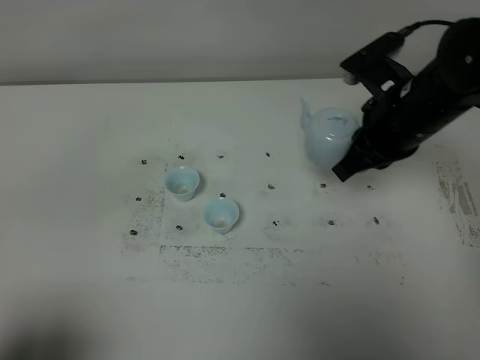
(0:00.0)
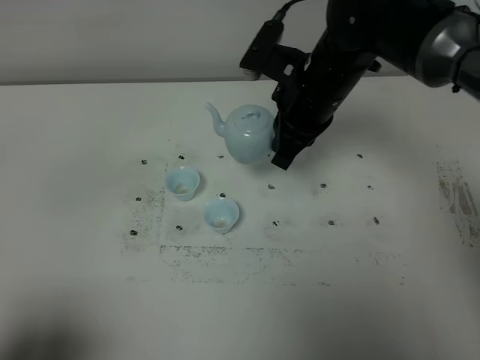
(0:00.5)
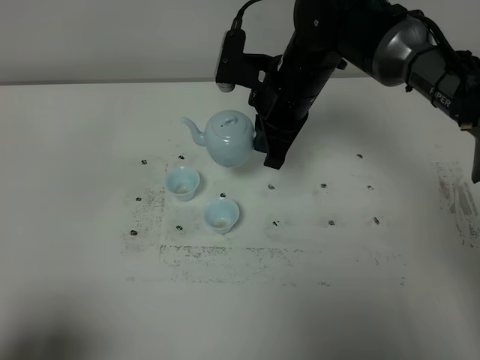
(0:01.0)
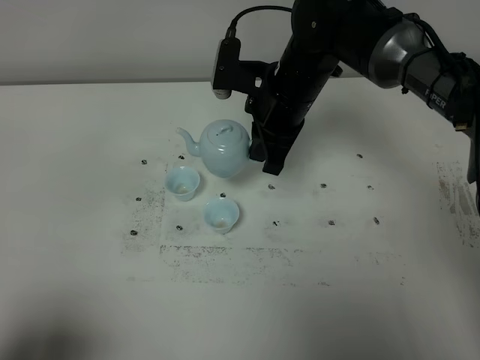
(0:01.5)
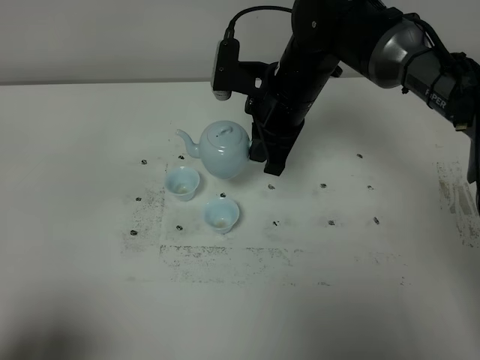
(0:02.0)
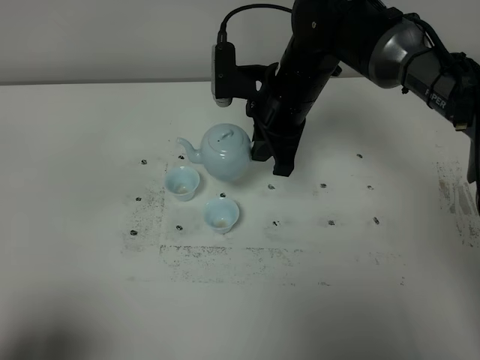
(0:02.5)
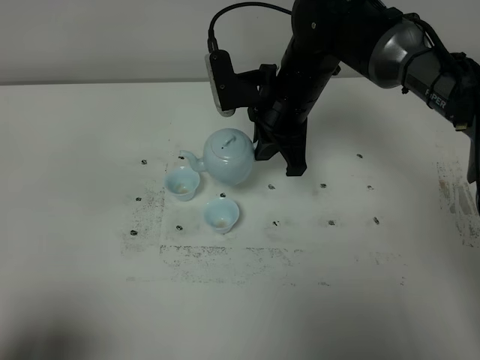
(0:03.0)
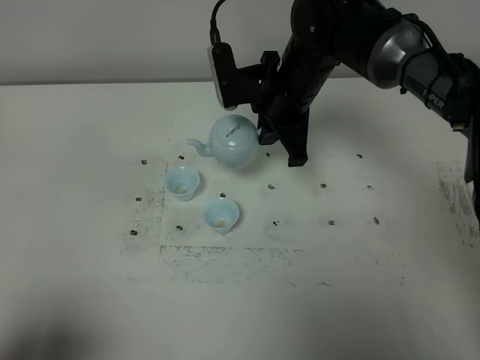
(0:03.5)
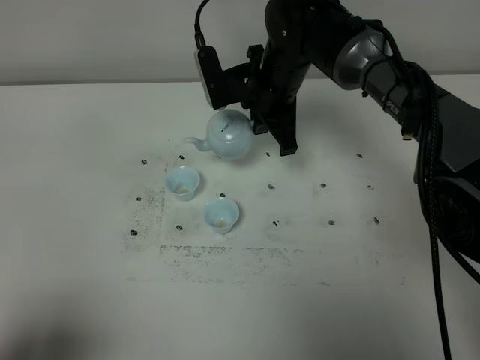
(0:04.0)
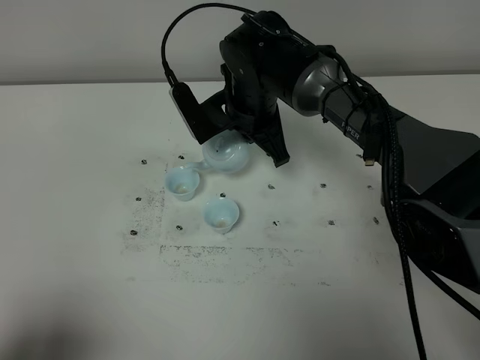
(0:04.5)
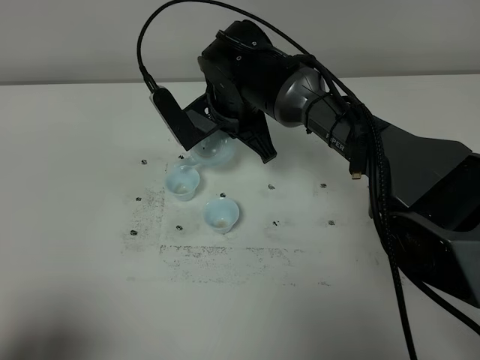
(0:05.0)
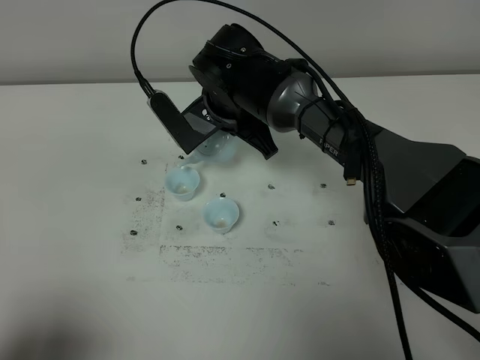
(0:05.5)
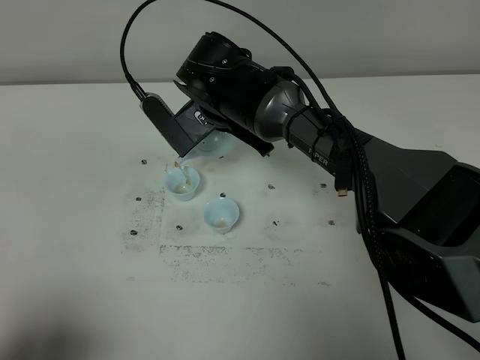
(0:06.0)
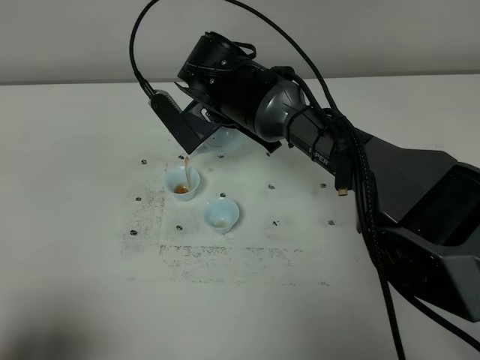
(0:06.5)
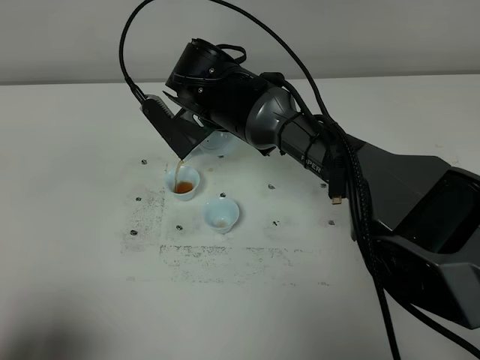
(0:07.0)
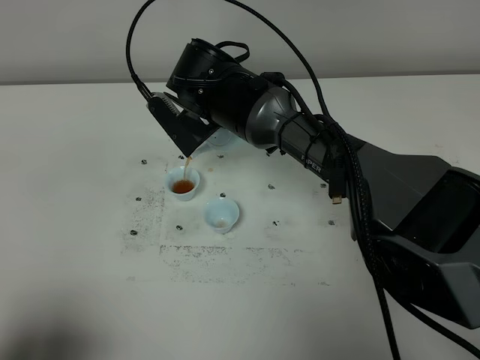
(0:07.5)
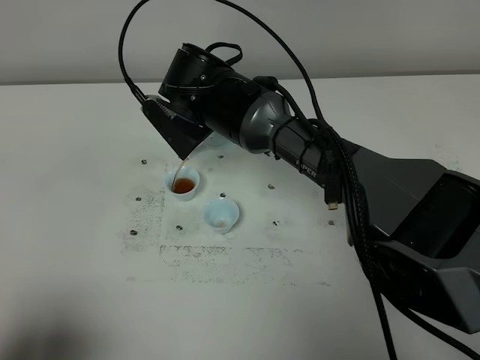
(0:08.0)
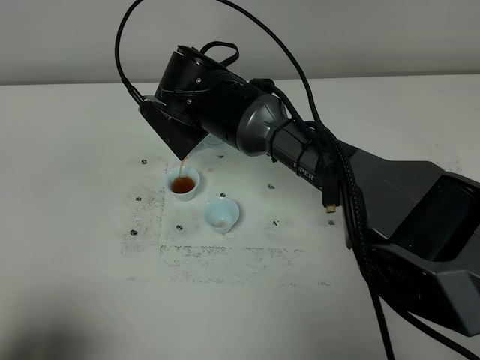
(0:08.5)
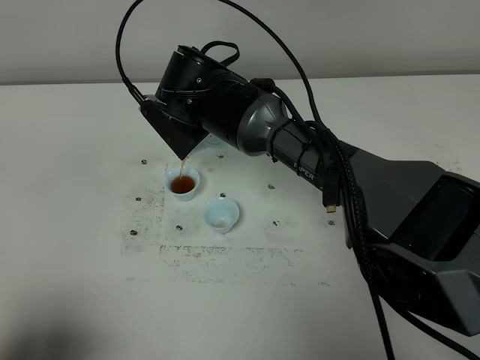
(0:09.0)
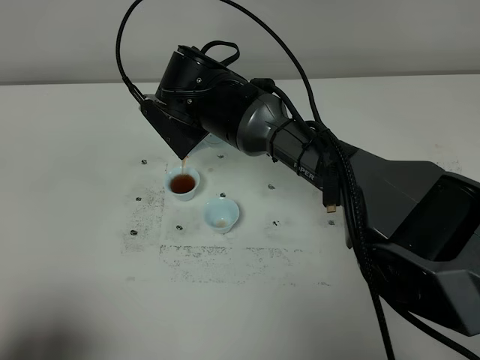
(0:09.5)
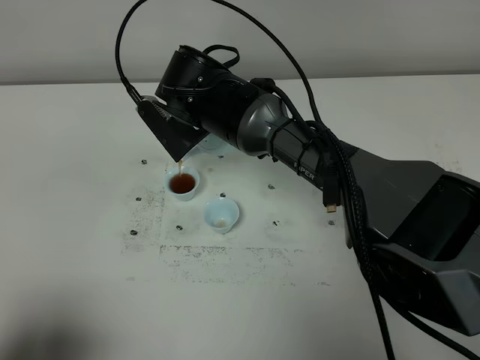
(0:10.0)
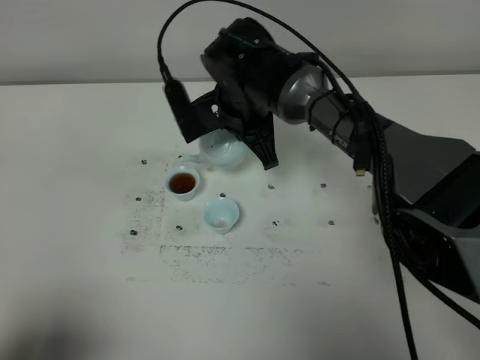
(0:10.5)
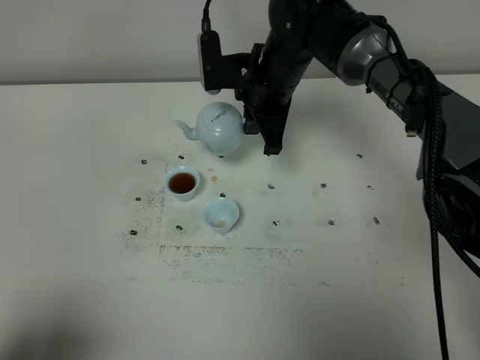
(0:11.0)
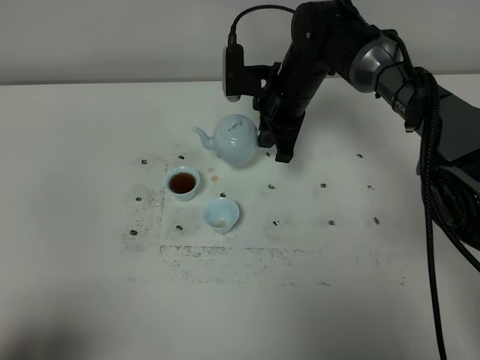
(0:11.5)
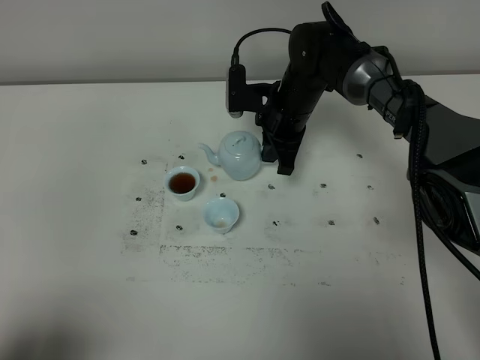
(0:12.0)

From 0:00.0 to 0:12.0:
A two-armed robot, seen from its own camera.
Task of the whole recording: grasp the blue porcelain teapot and pour the tea into the two blue porcelain teacups one by one, put the blue porcelain teapot back in its original place.
Step, from 0:00.0 to 0:10.5: Pour tea into the teacup with the right gripper.
From 0:00.0 to 0:02.0: The right gripper shifts about 15 cm to the left and forward.
From 0:04.0 to 0:06.0: The right gripper heads to the left, covering approximately 5 cm.
From 0:06.0 to 0:08.0: The grippers stay close to where they were, moving slightly.
From 0:08.0 to 0:10.0: Neither gripper changes place.
From 0:10.0 to 0:12.0: The right gripper travels to the right, forward and downward by approximately 15 cm.

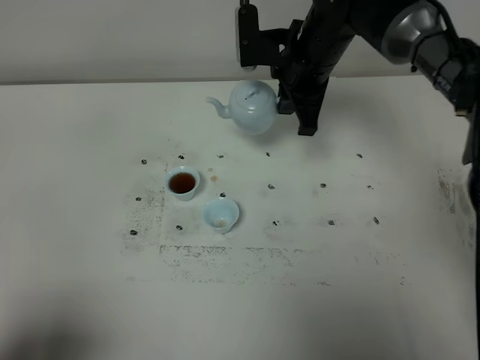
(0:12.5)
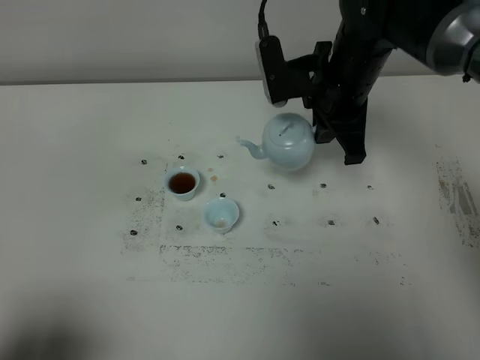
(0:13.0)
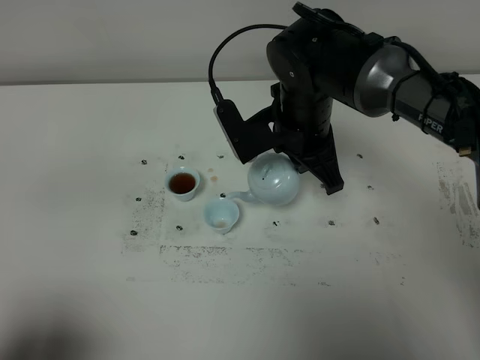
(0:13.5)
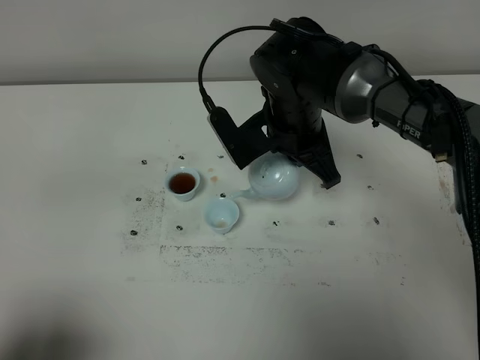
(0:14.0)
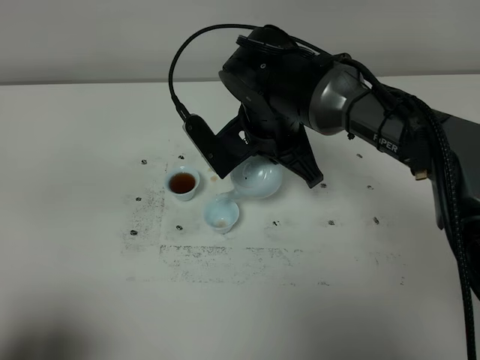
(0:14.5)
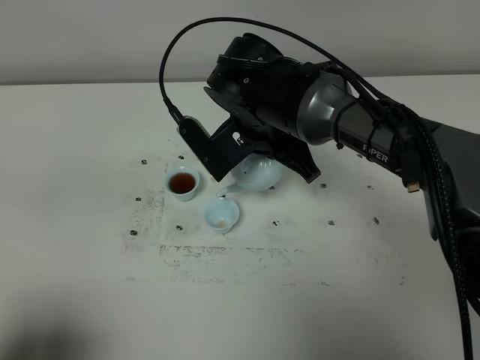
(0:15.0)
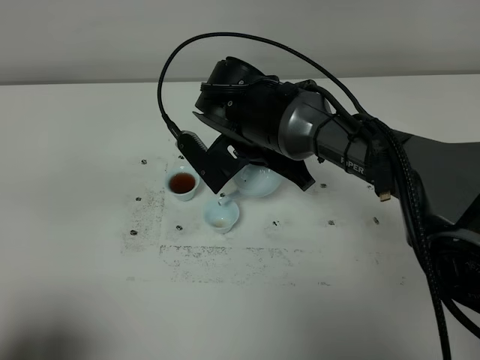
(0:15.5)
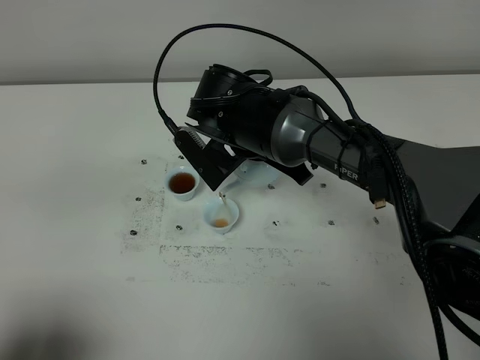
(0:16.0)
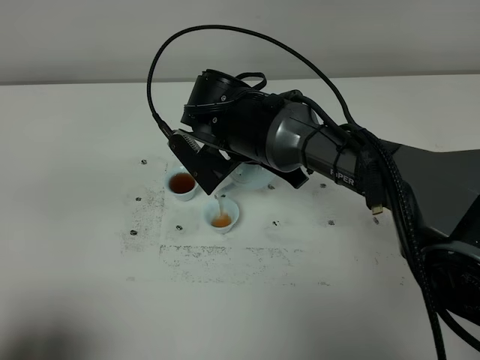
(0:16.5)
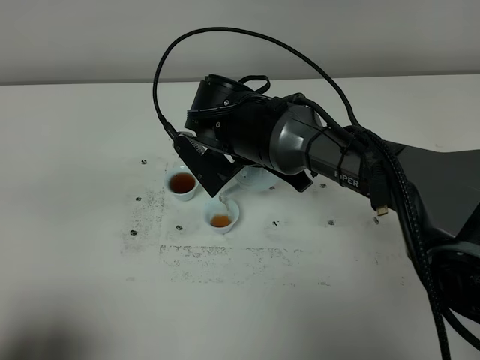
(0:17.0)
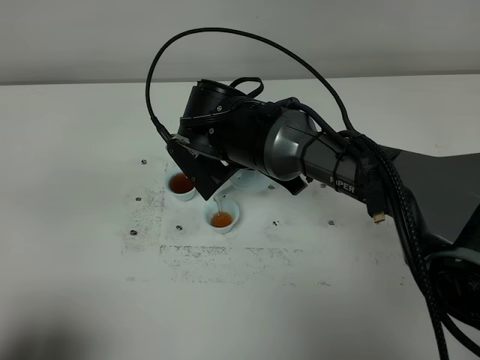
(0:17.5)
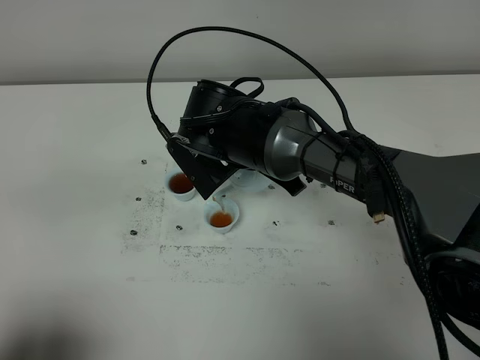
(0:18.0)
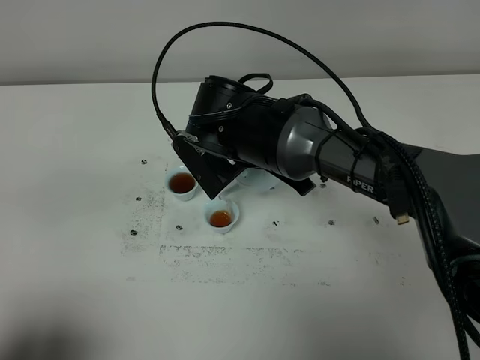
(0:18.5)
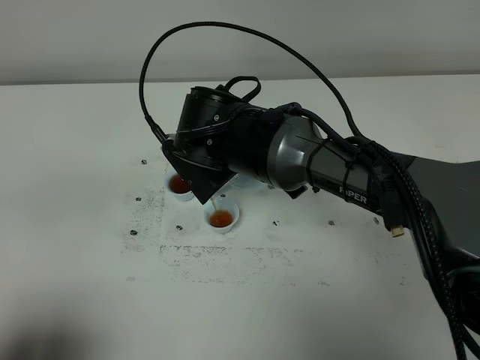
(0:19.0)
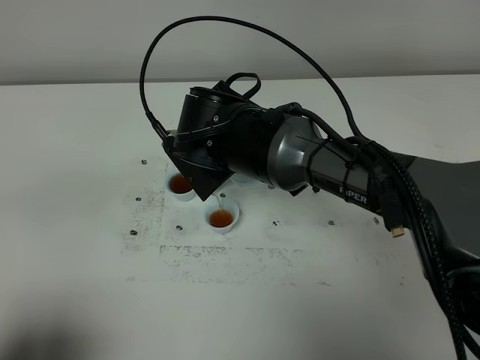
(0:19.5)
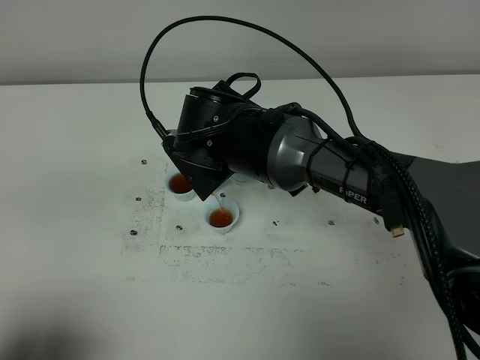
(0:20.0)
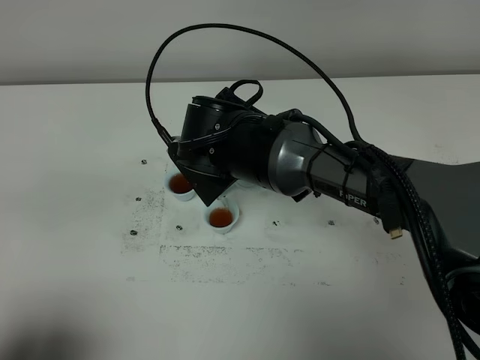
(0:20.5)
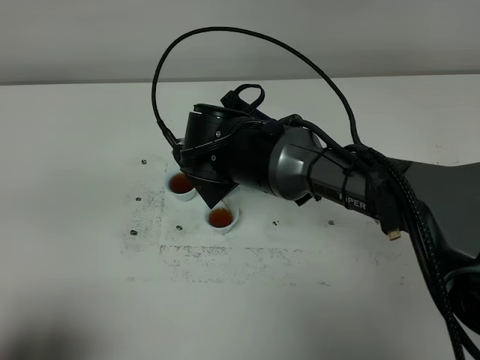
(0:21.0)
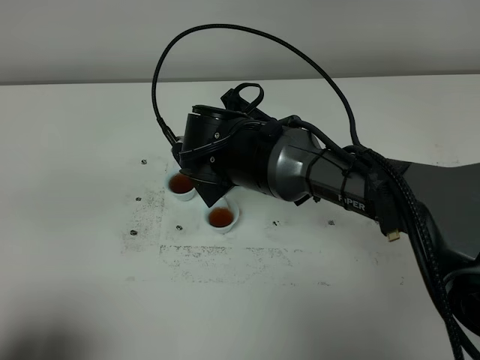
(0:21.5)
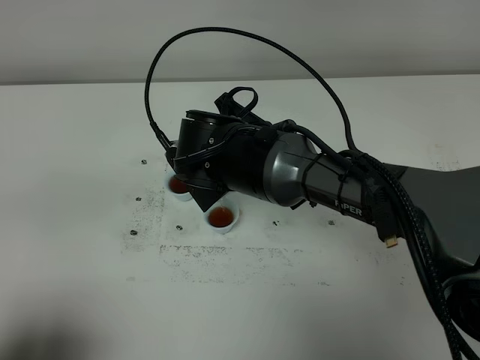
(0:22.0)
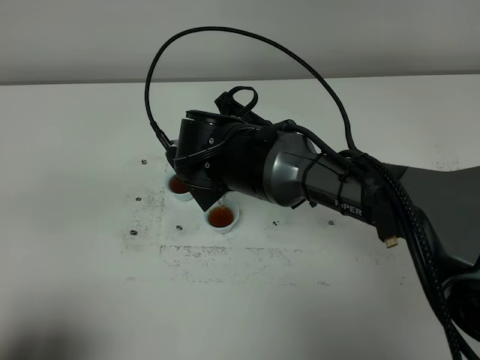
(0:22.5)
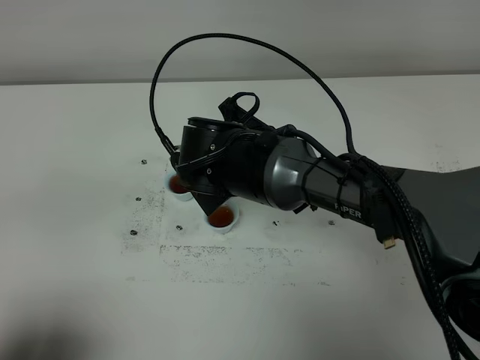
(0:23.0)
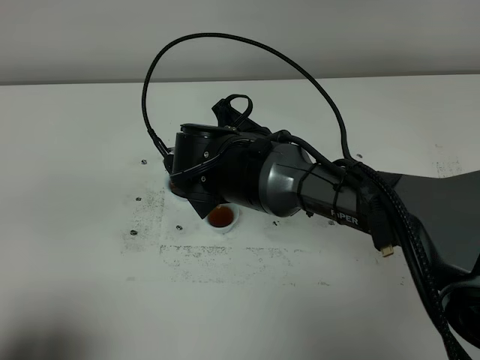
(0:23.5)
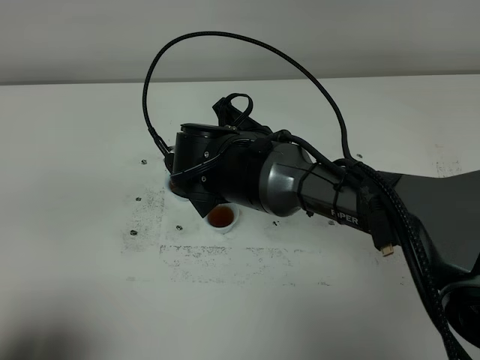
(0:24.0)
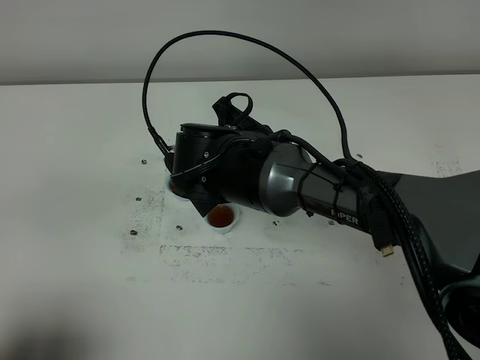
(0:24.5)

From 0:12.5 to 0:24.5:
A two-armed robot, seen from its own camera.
Task of the whole recording: grasp the blue porcelain teapot and pour the tea into the two blue porcelain teacups one by one, put the blue porcelain teapot back in its original place.
From 0:12.5 to 0:14.5: The right gripper moves backward and to the left, roughly 10 cm.
From 0:16.5 to 0:18.5: There are only small adjustments of the grippers.
From 0:18.5 to 0:20.5: Both grippers stay about where they are.
From 0:20.5 to 0:22.5: Both grippers stay about where they are.
From 0:22.5 to 0:24.5: Both grippers stay put.

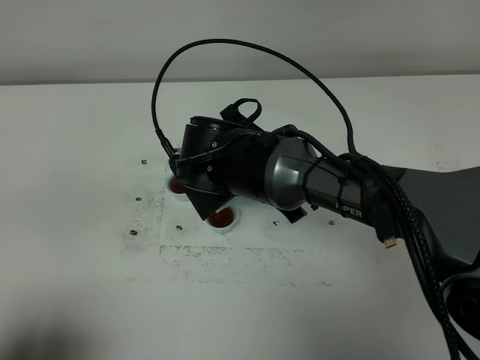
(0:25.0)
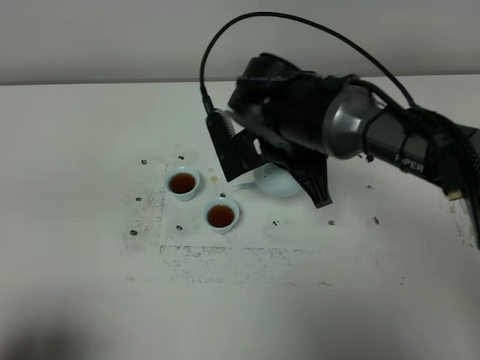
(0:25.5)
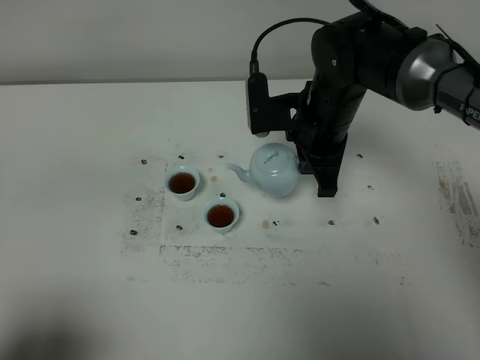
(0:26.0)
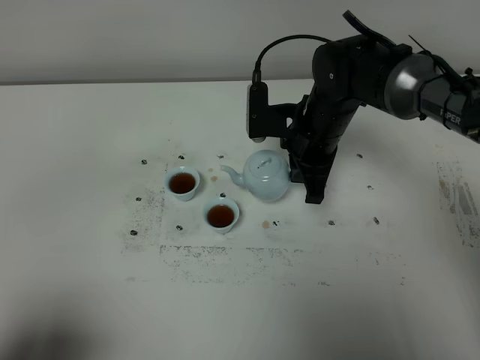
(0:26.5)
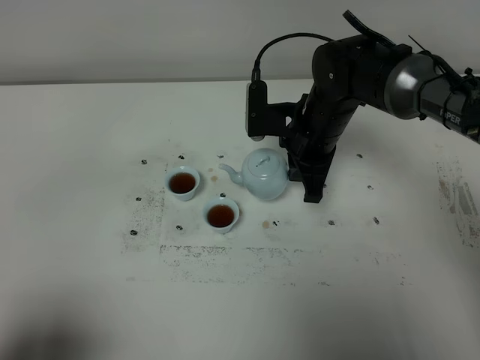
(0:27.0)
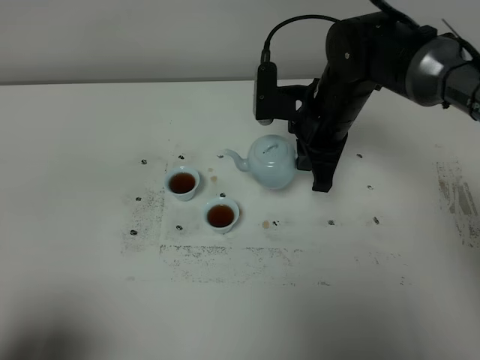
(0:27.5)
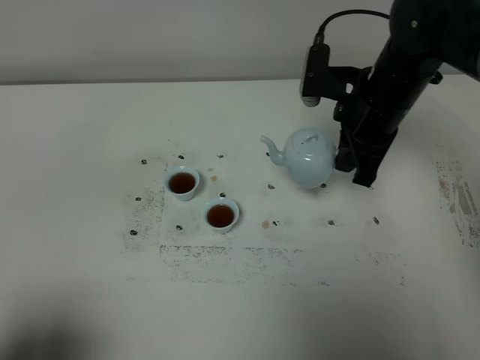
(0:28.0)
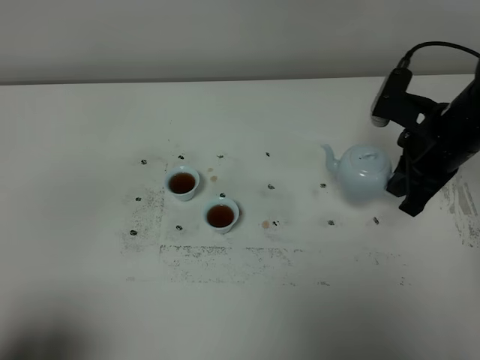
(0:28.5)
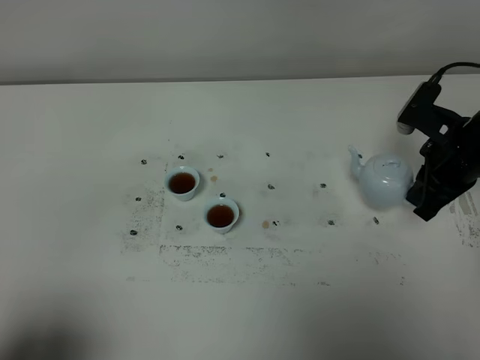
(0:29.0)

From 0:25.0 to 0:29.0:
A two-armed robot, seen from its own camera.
Task of the whole recording: grasp the blue porcelain teapot and pour the tea into the two blue porcelain teacups one by one, put the blue porcelain teapot back in its original place.
From 0:25.0 to 0:27.0: The right gripper is displaced to the right and forward by roughly 10 cm.
From 0:27.0 to 0:29.0: The right gripper moves to the right, roughly 15 cm.
